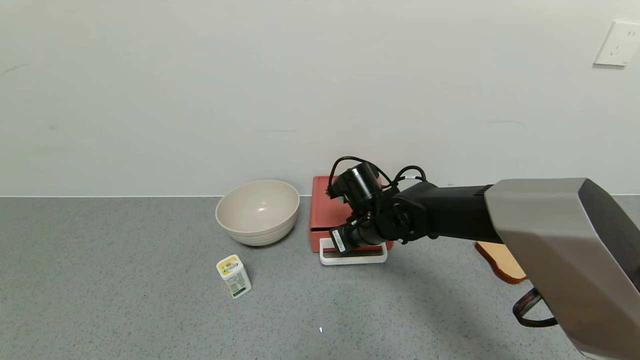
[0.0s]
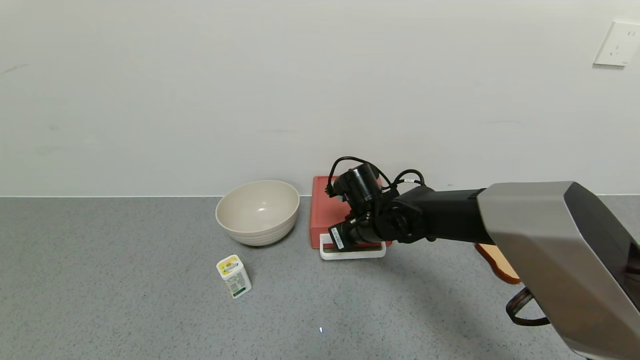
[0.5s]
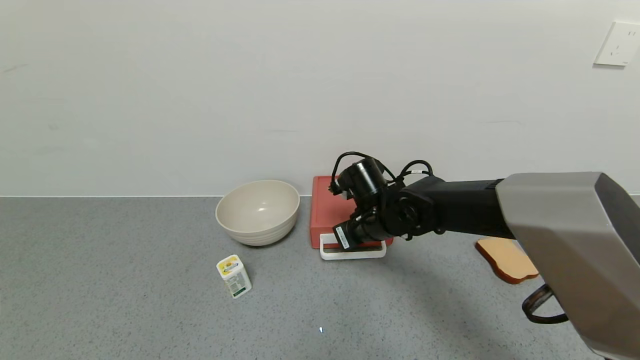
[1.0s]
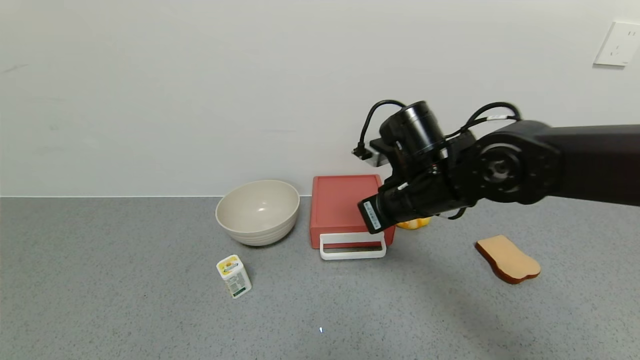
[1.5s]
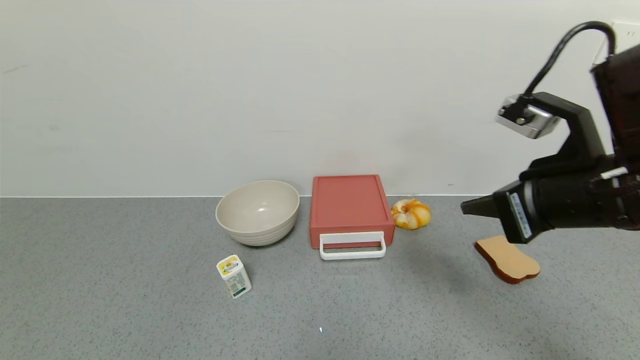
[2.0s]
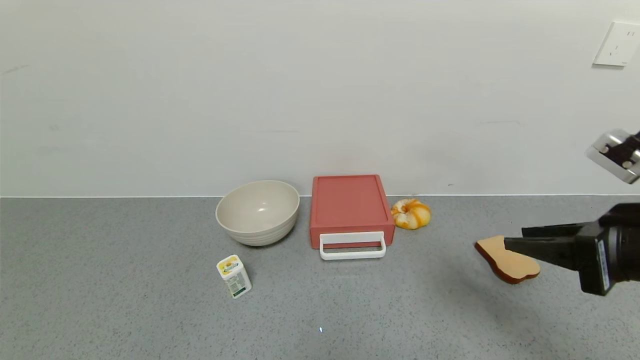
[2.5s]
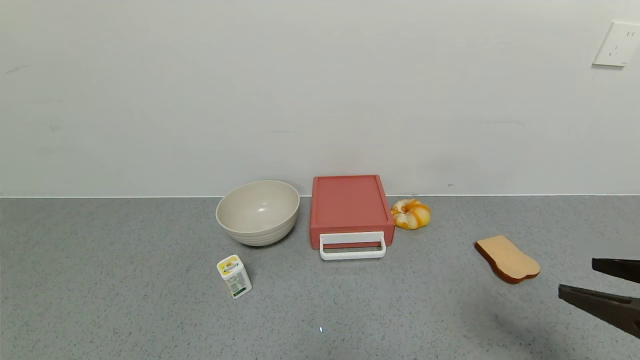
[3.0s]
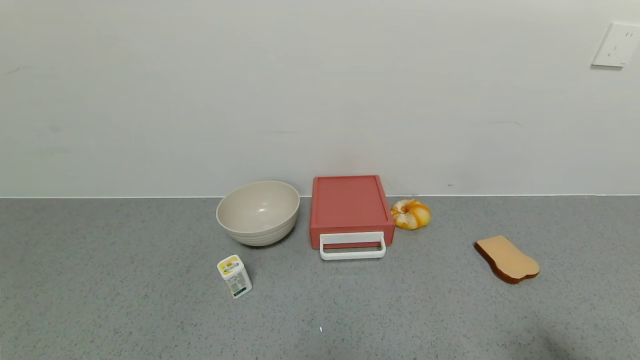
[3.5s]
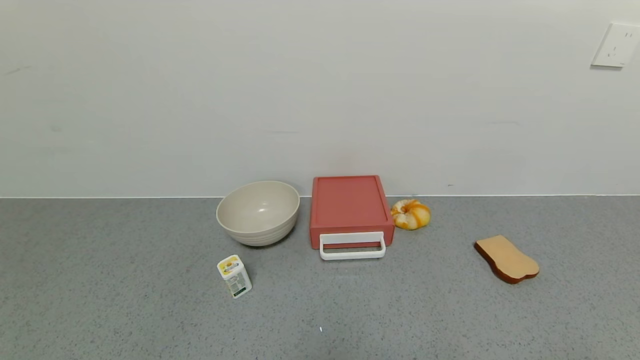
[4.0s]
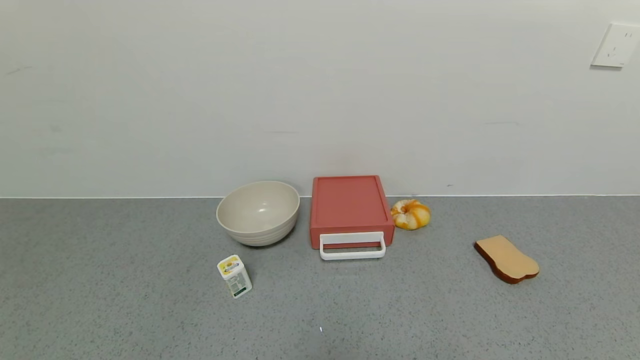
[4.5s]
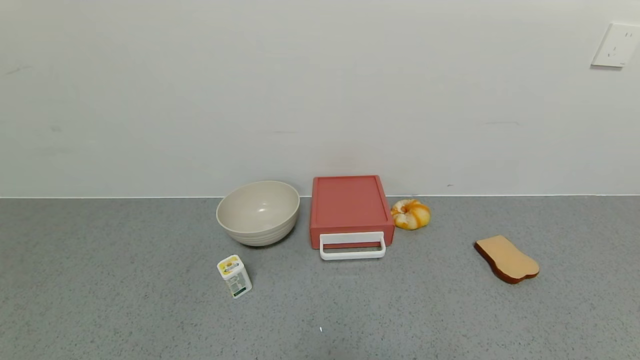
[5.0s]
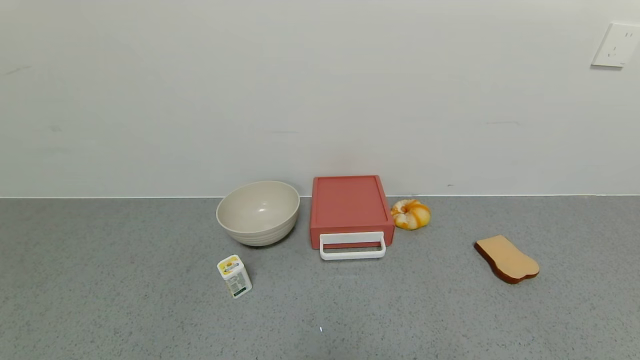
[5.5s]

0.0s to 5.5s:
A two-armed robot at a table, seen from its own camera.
Task of the whole recording: use the gripper to open the drawer and close the red drawer.
0.0s to 2.0s: The right gripper is displaced to the right, upward and backward by roughly 30 cm.
2.0s to 3.5s: The right gripper travels backward and to the right by about 20 cm, and opens its fingers.
